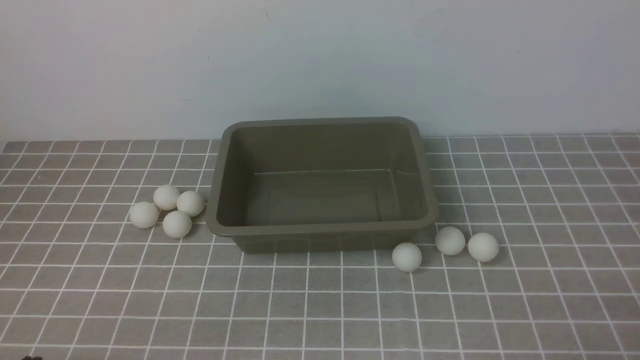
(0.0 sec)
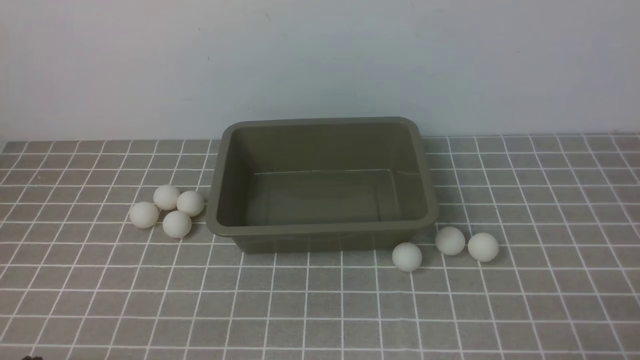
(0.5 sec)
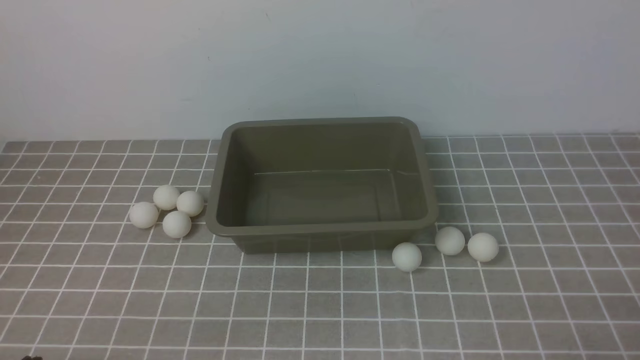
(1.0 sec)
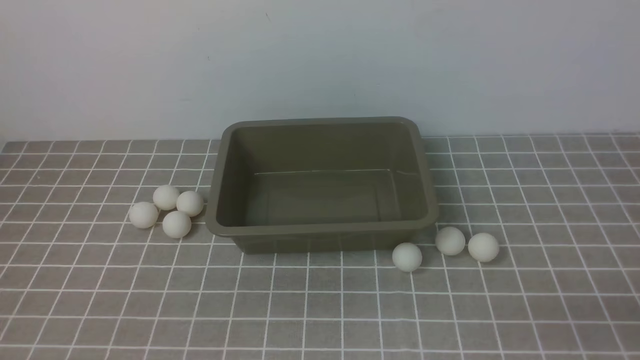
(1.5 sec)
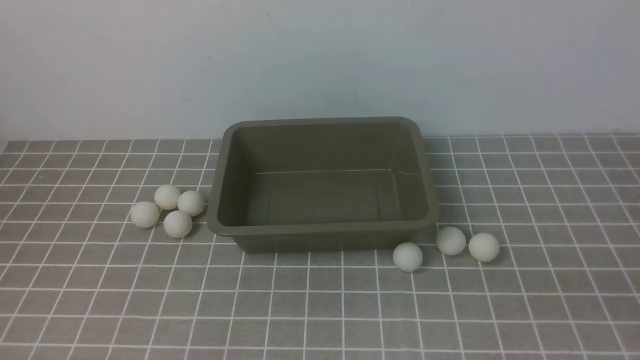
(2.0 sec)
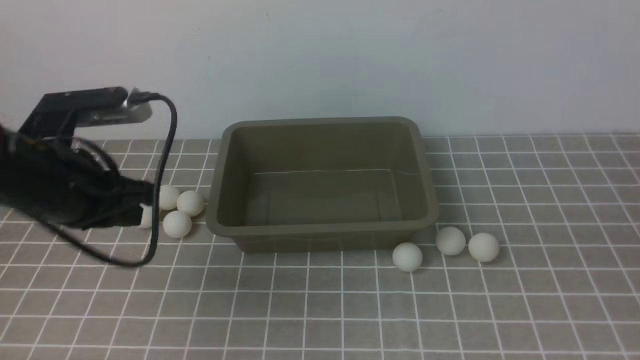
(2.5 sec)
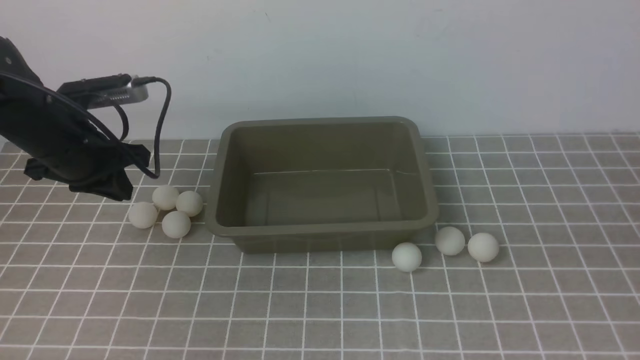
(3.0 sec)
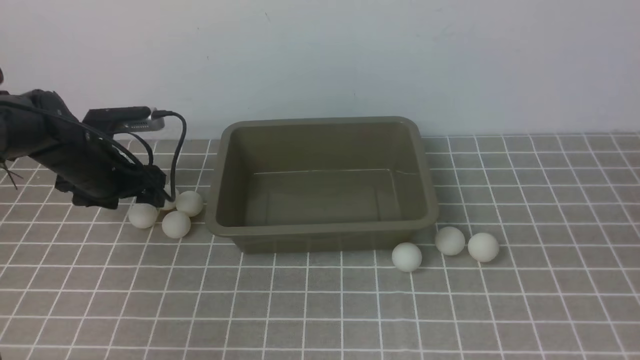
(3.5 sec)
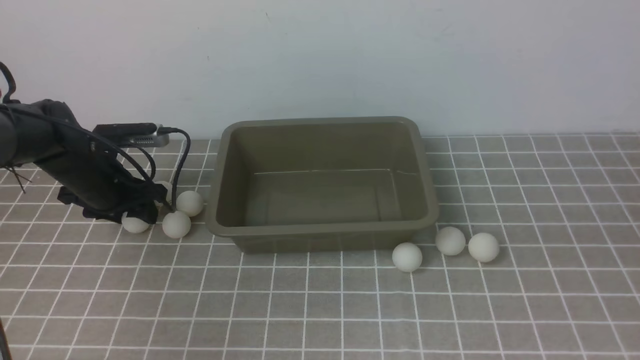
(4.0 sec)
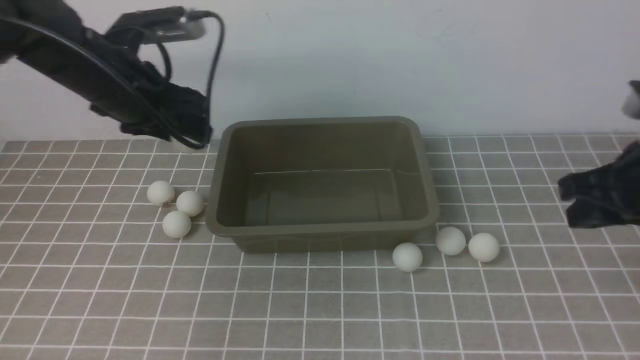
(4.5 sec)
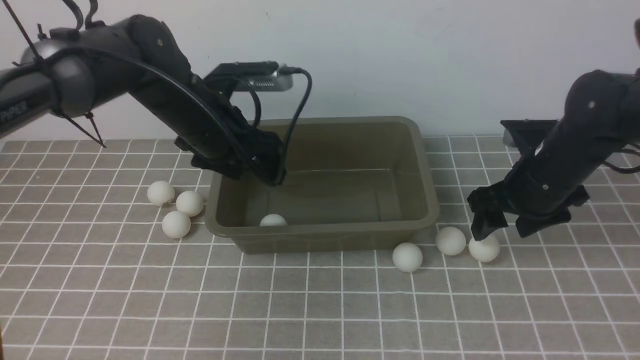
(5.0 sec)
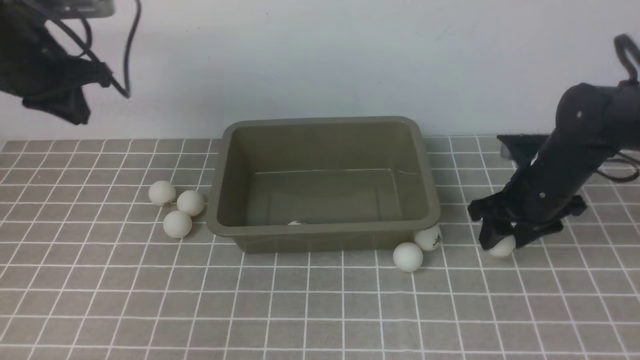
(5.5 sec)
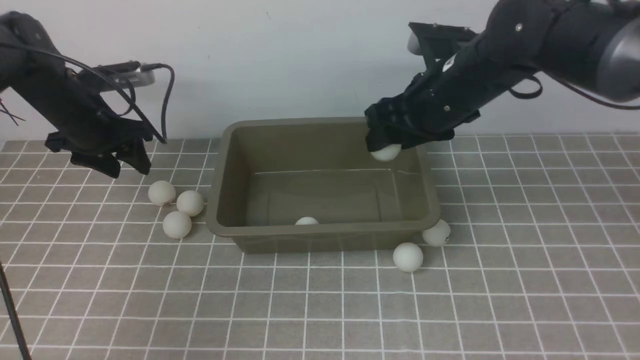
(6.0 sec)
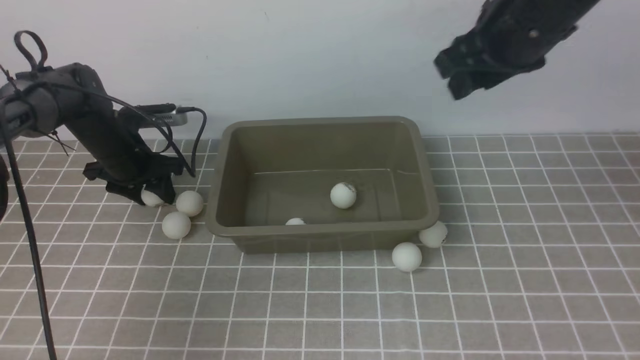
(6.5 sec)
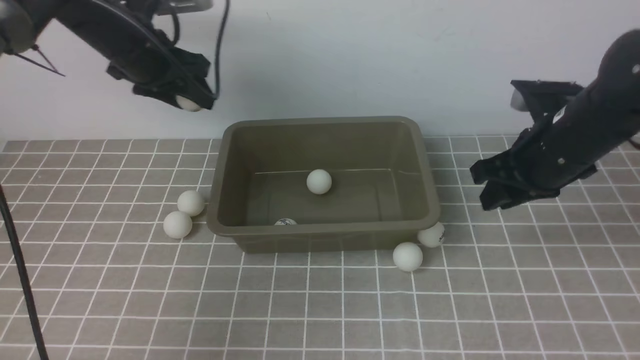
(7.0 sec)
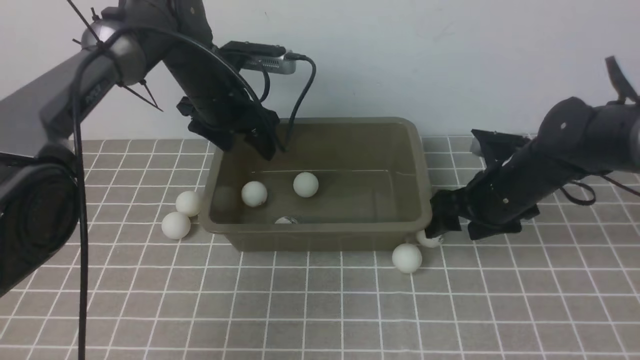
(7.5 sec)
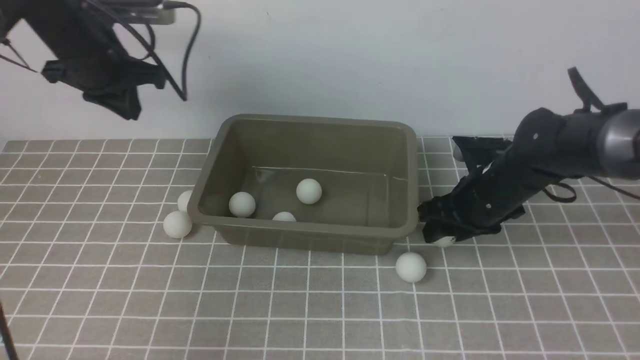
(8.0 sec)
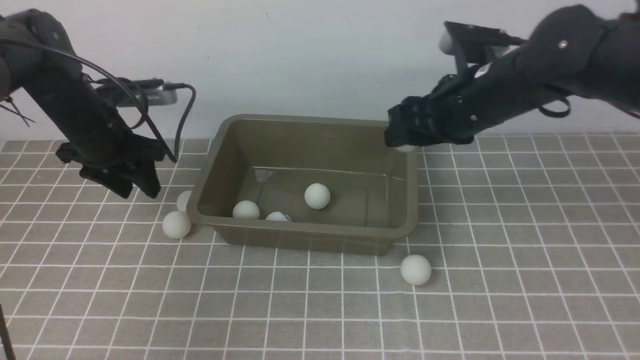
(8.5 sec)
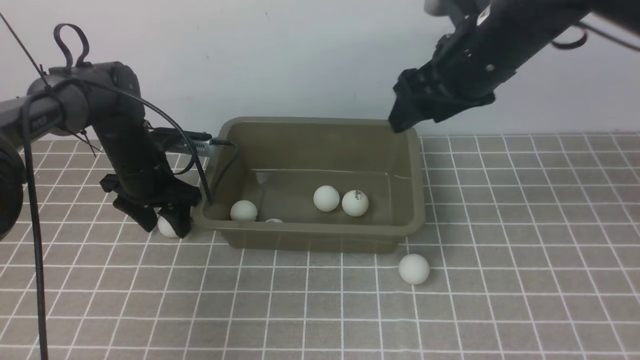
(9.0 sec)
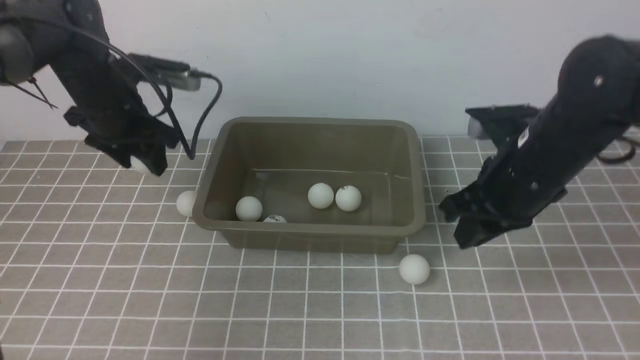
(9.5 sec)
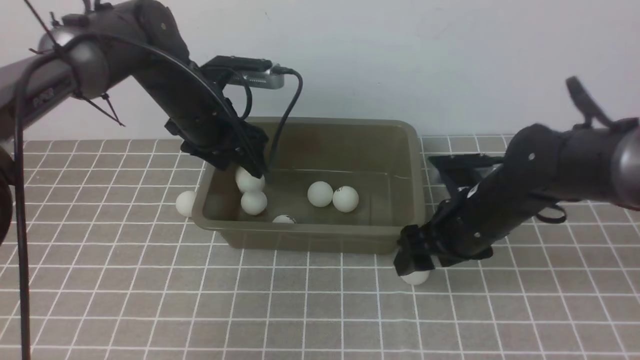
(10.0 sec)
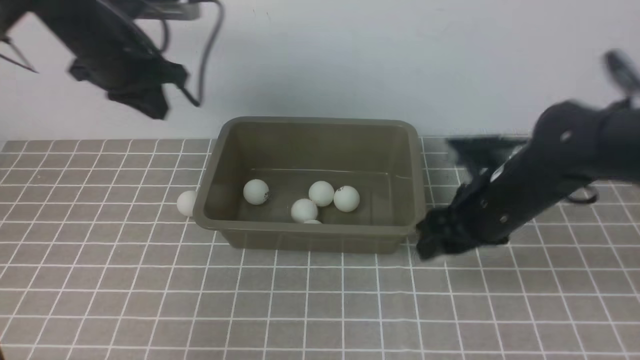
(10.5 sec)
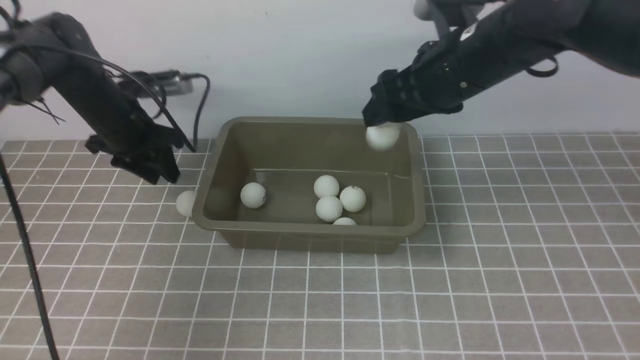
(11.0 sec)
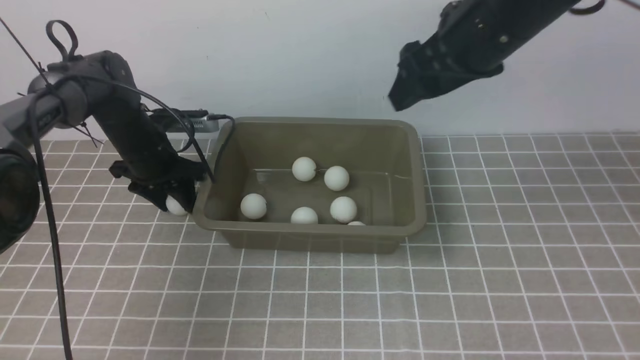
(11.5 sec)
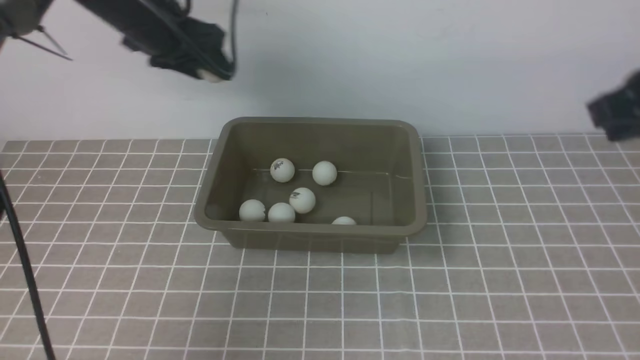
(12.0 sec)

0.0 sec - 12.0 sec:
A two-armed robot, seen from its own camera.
Step, 0.0 sec - 4.0 sec: use the left arm to clamp the table tennis ball closest to it.
Step, 5.0 sec - 5.5 sec: use the right arm to clamp the table tennis ball closest to it.
Step, 7.5 sec - 8.0 sec: use the right arm to clamp the table tennis ball closest to it.
2.0 sec - 4.0 sec: The left gripper is displaced forward and downward by some 35 cm, and opens its fingers.
4.0 sec - 6.0 sec: The left gripper reaches about 15 cm to the right, then returns, and closes, then reopens. The right gripper heads forward and to the left, covering some 30 cm, and opens its fingers.
6.0 sec - 8.0 sec: The right gripper heads downward and to the right, covering about 15 cm, while the left gripper is displaced upward by roughly 10 cm, reaches approximately 15 cm to the right, then returns, and closes its fingers.
8.0 sec - 10.0 sec: The left gripper moves to the right, approximately 10 cm, moves some 15 cm downward and comes back, and opens. Meanwhile the right gripper reaches roughly 15 cm upward, then returns, and closes, then reopens.
10.0 sec - 12.0 sec: The left gripper goes up and down, approximately 15 cm each way, reversing 2 times, and closes and opens again. The right gripper travels upward, to the right and backward by roughly 25 cm, and closes.

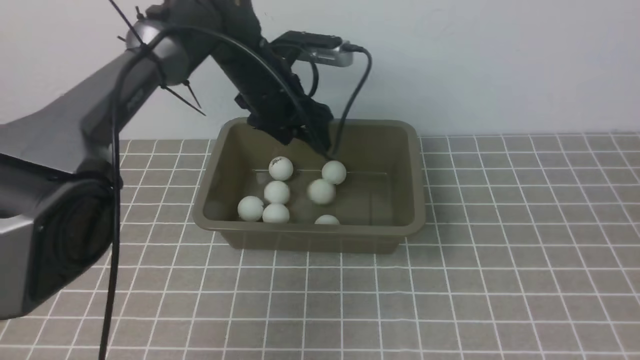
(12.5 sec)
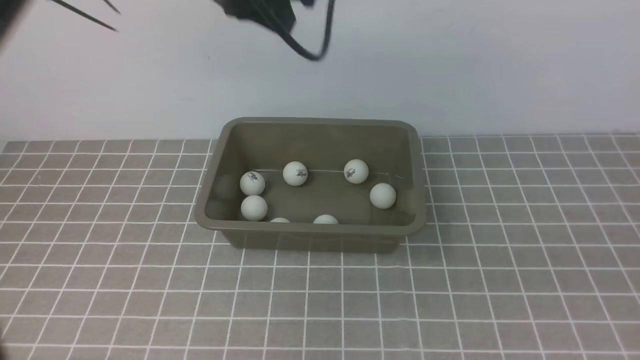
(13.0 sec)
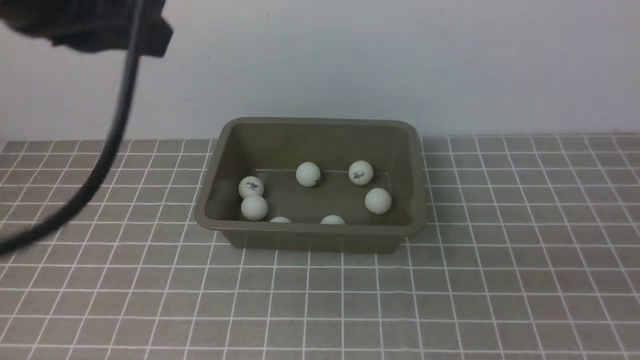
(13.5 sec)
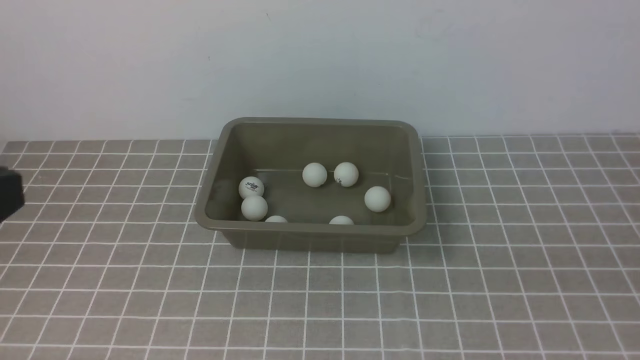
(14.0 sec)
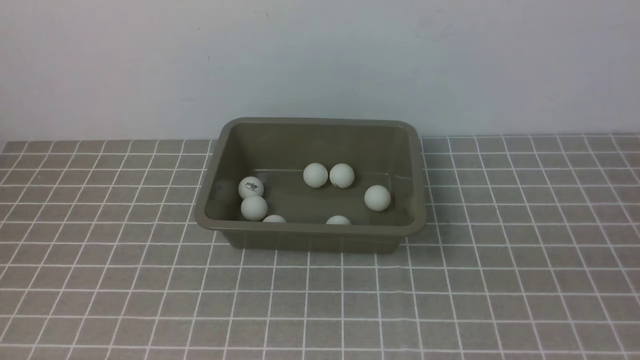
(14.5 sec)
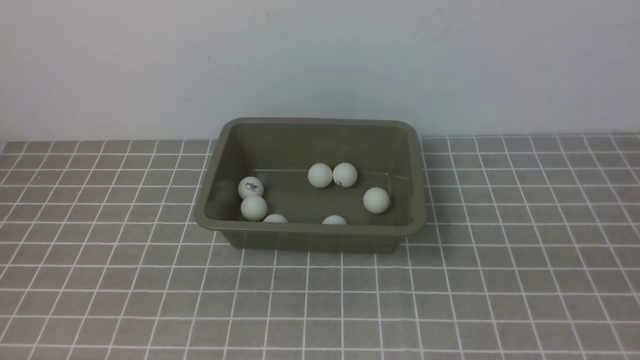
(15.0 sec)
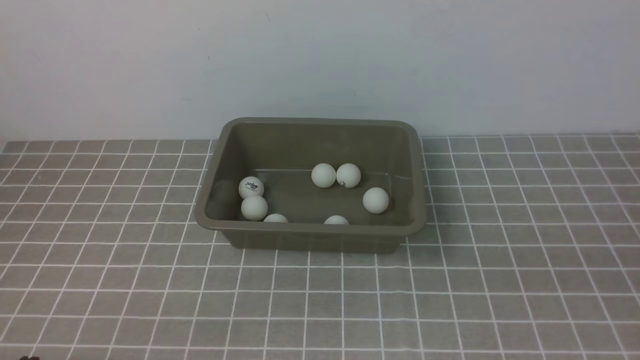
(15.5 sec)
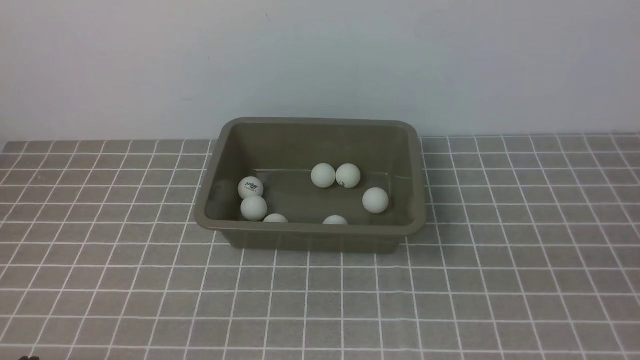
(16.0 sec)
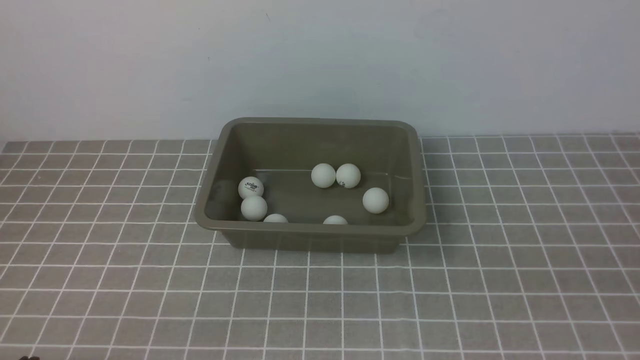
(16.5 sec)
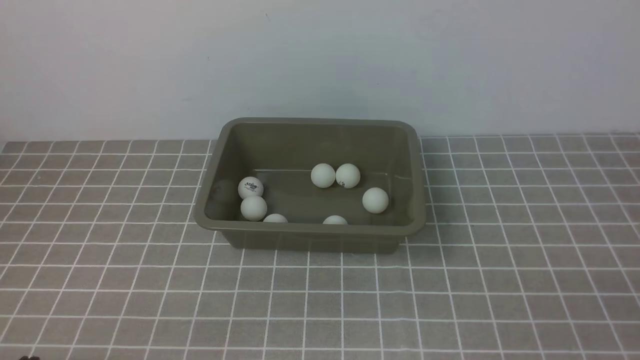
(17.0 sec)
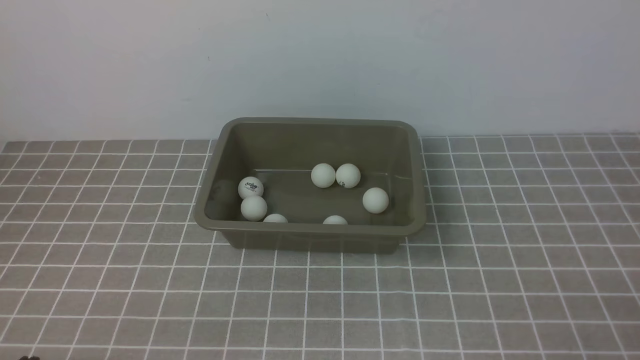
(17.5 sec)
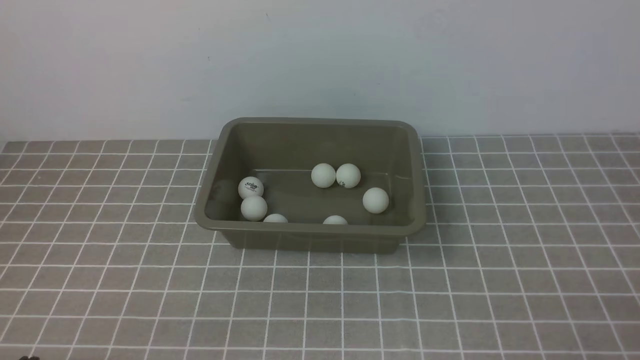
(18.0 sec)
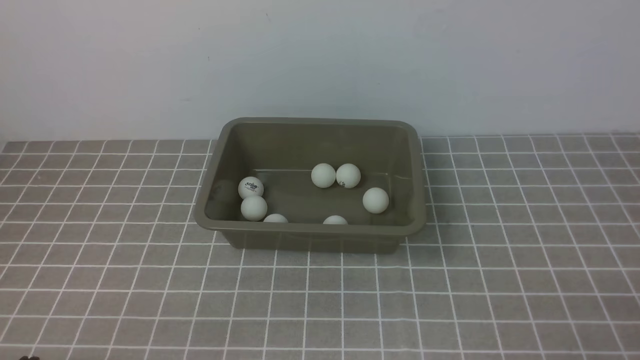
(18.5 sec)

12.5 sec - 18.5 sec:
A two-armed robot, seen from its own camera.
12.5 sec - 14.5 sec: The left gripper is displaced backward by approximately 40 cm, and closes; the right gripper shifts approximately 5 cm backward.

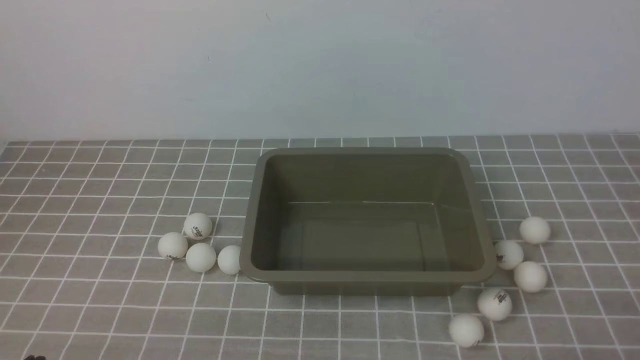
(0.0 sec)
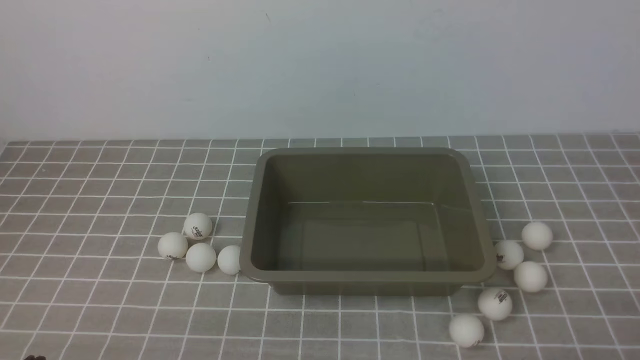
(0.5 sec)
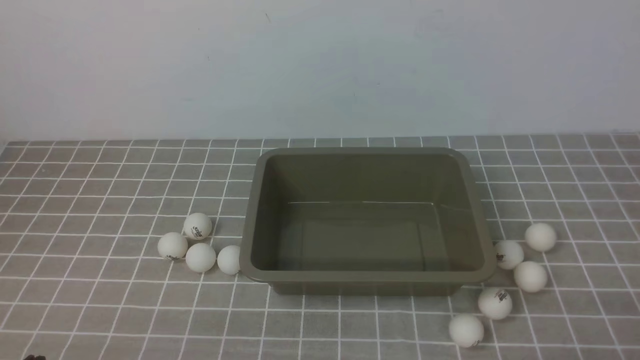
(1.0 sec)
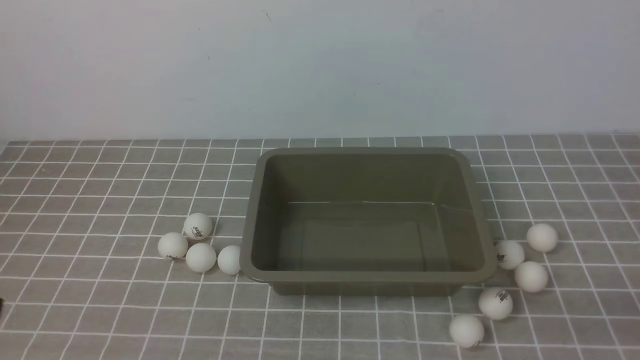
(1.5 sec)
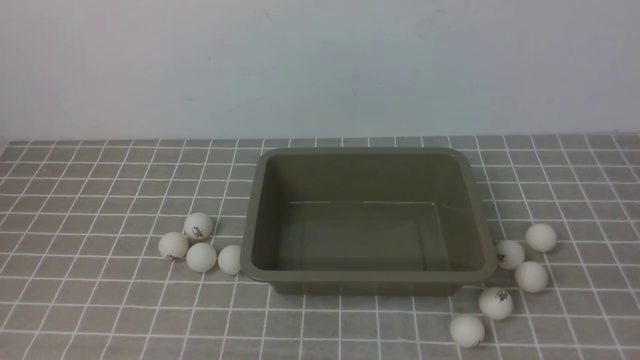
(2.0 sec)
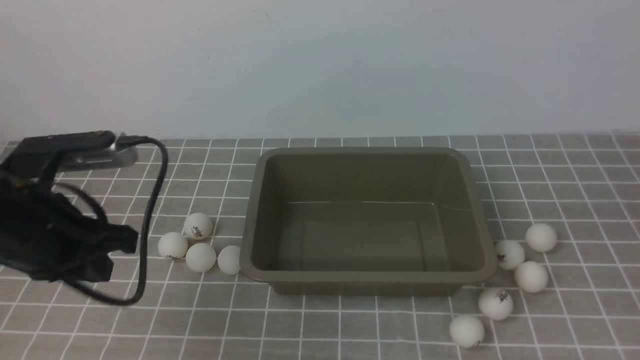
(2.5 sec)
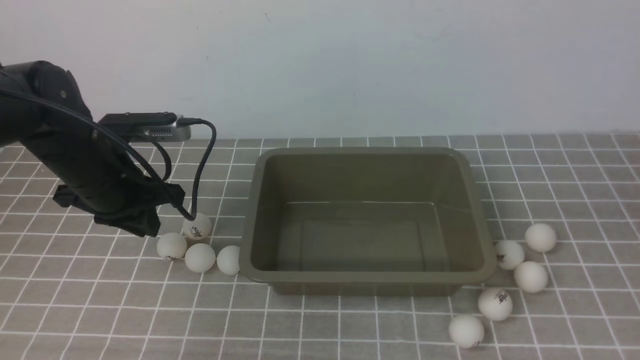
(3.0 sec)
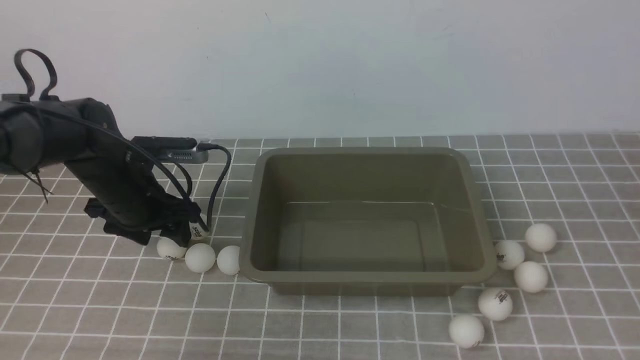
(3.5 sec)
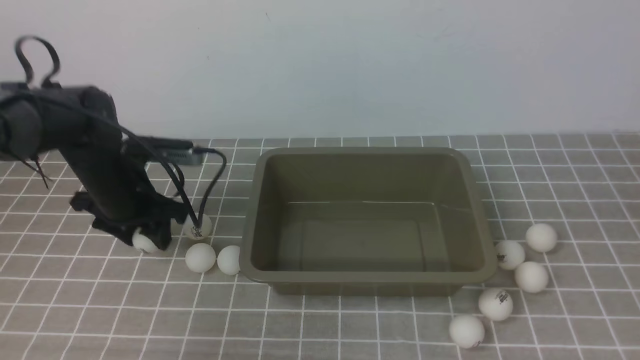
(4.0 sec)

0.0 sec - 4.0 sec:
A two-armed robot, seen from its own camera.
2.0 sec - 4.0 sec: The left gripper goes approximately 30 cm forward, and opens up, while the right gripper moves forward and upward, about 10 cm.
